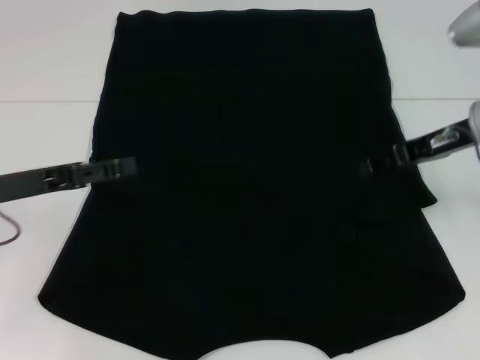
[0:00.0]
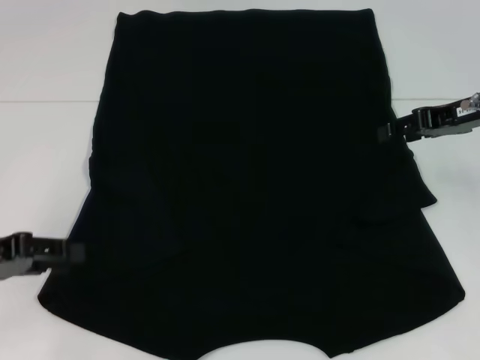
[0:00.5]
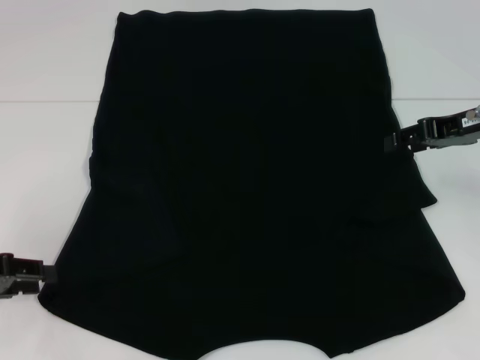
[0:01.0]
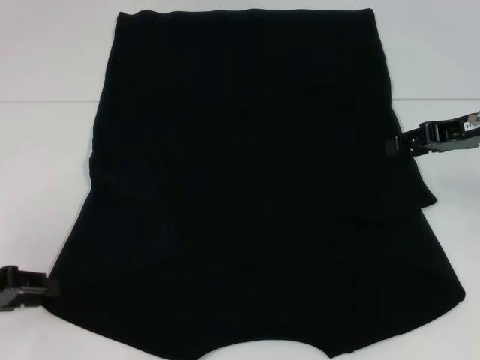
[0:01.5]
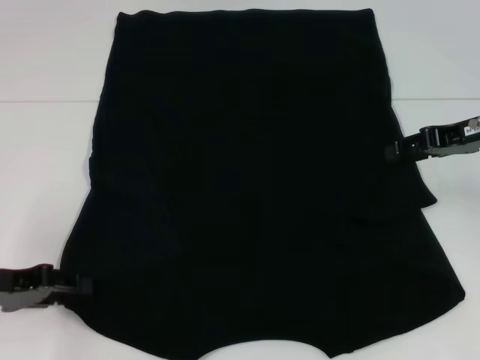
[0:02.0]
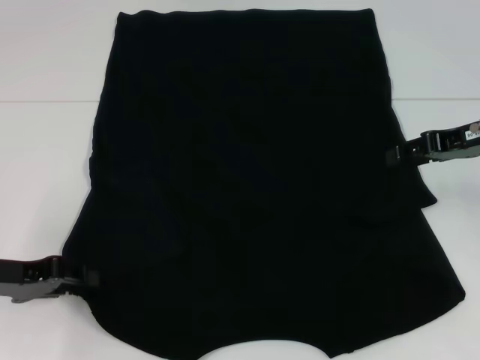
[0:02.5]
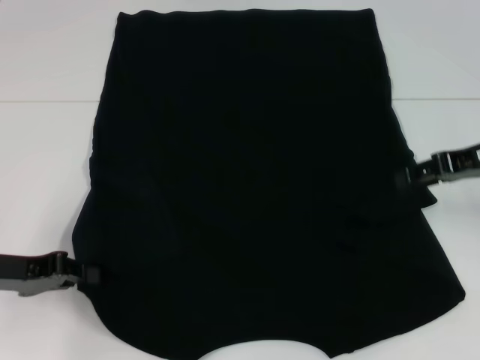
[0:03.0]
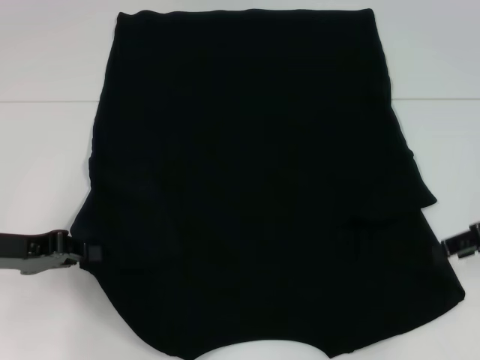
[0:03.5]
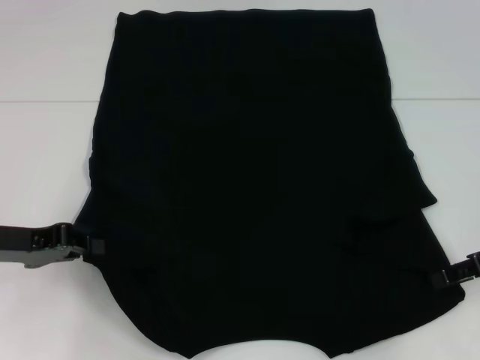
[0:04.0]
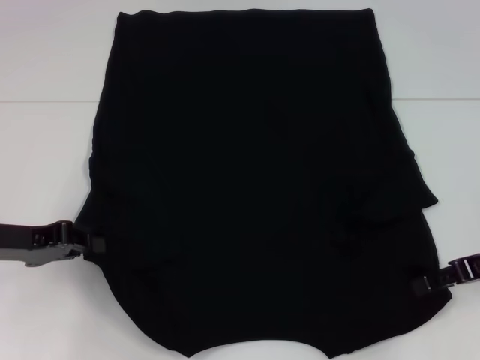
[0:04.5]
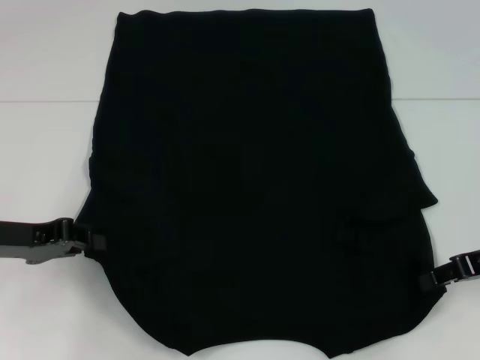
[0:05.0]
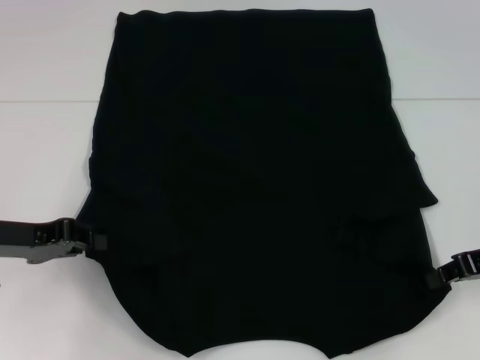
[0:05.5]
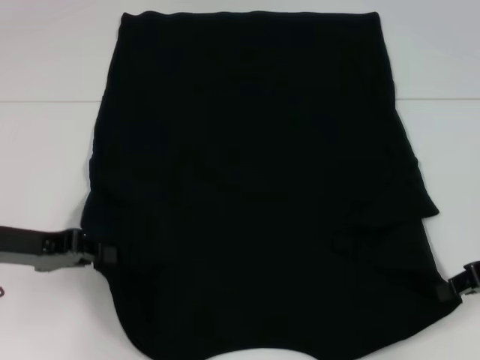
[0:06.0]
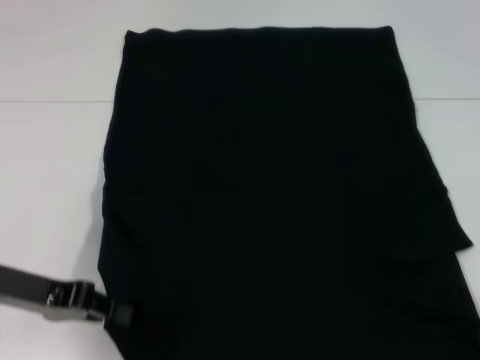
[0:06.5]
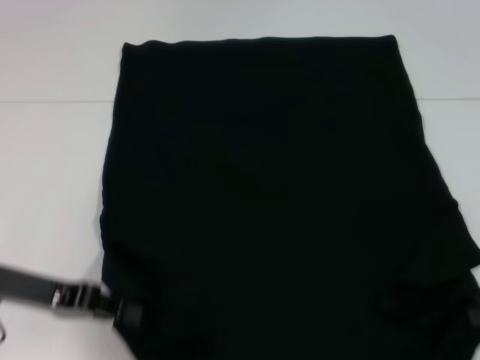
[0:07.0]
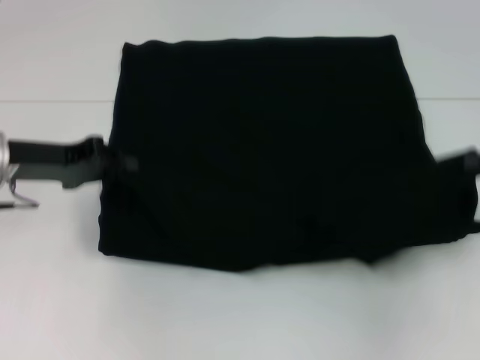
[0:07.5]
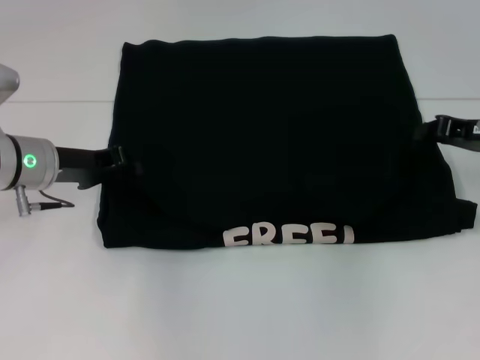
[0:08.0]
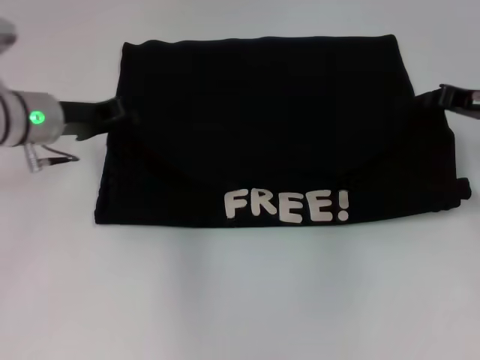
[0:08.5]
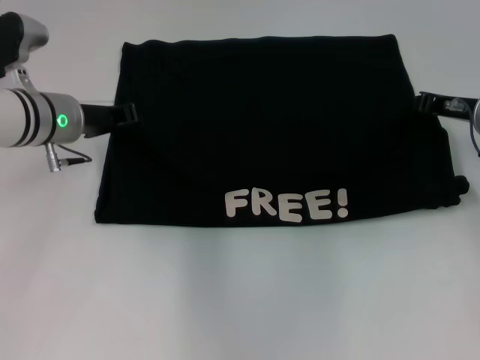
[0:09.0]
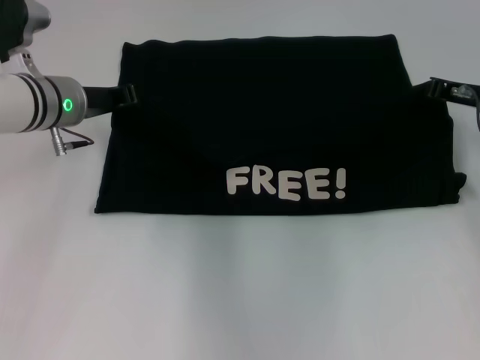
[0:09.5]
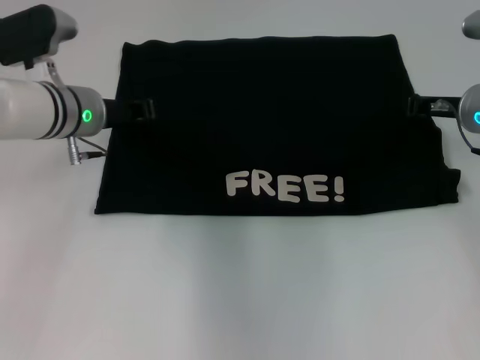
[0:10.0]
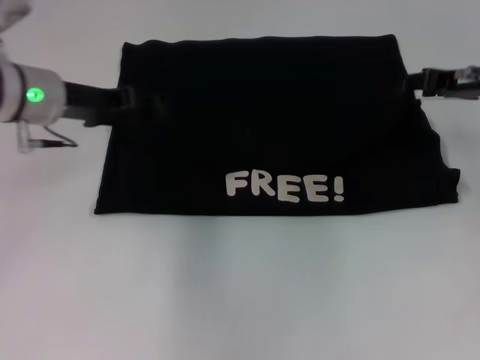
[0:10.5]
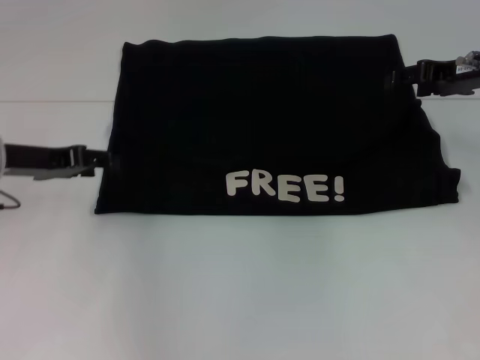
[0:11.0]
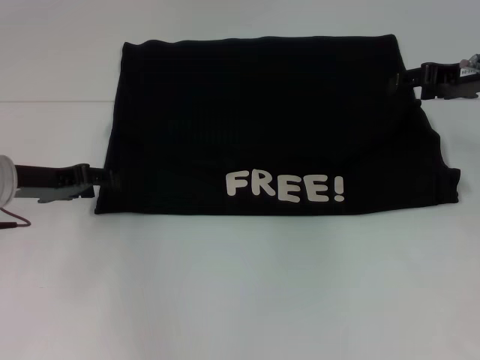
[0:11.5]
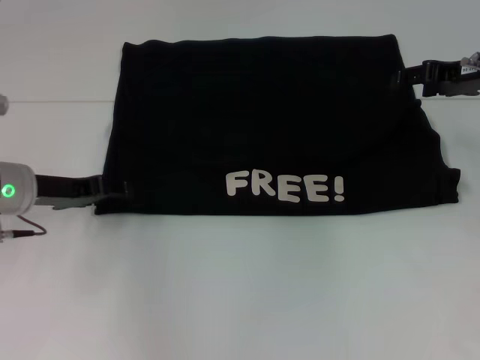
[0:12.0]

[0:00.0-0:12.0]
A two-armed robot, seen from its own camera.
Step, 0:00.0 to 0:02.5: Grab the bottom left corner with your left hand.
Step, 0:03.0 to 0:05.5: Grab the bottom right corner with your right hand.
Step, 0:06.0 to 0:10.0: Fold the clothes with your left hand.
Step, 0:06.0 to 0:10.0: Fold the clothes with your right hand.
0:00.0 to 0:02.0: The left gripper changes place by some 5 cm.
0:02.0 to 0:04.0: The left gripper closes; the right gripper heads backward and downward, covering approximately 10 cm.
0:04.0 to 0:06.0: The right gripper closes its fingers.
0:06.0 to 0:08.0: Both grippers travel together forward, some 10 cm.
0:08.0 to 0:10.0: The right gripper changes place by some 5 cm; the left gripper travels to the right and forward by roughly 5 cm.
0:10.0 to 0:12.0: The left gripper heads to the left and backward, covering some 10 cm, and opens, while the right gripper shifts approximately 5 cm upward, and opens up.

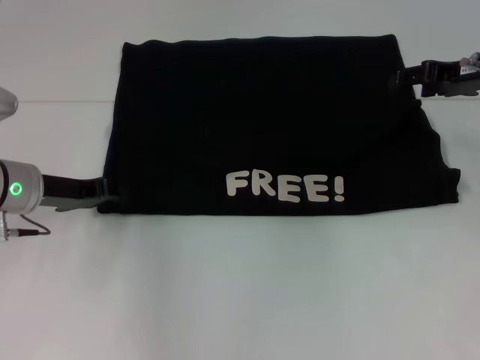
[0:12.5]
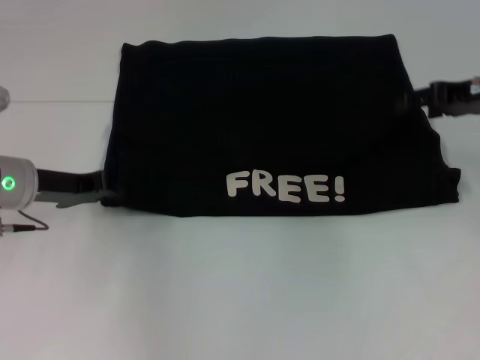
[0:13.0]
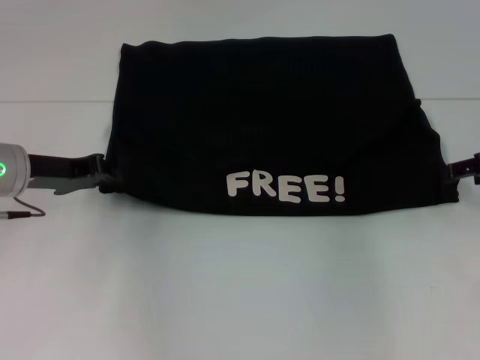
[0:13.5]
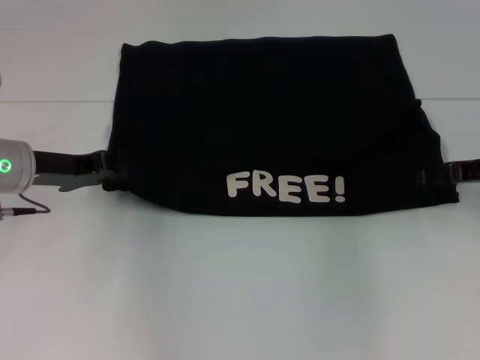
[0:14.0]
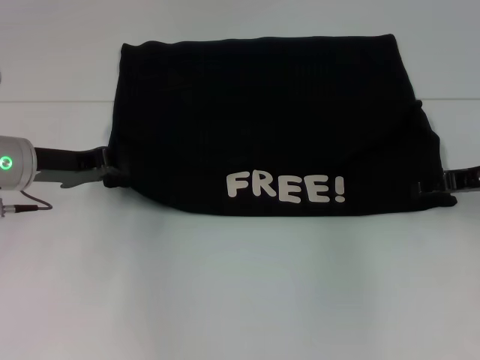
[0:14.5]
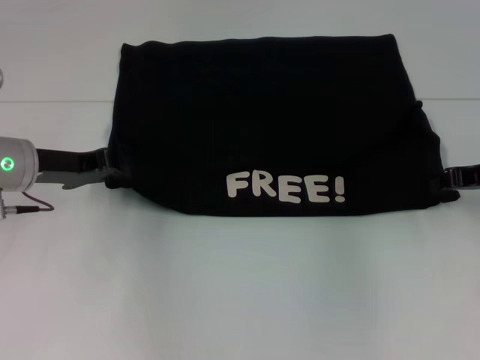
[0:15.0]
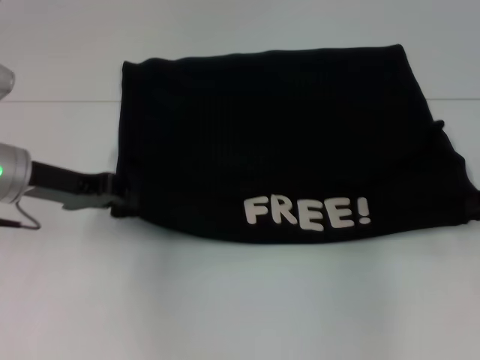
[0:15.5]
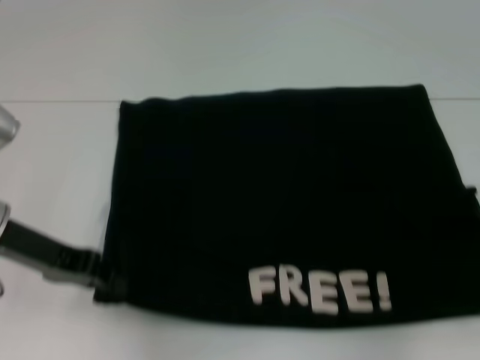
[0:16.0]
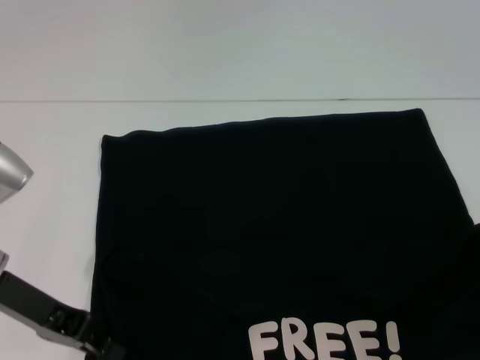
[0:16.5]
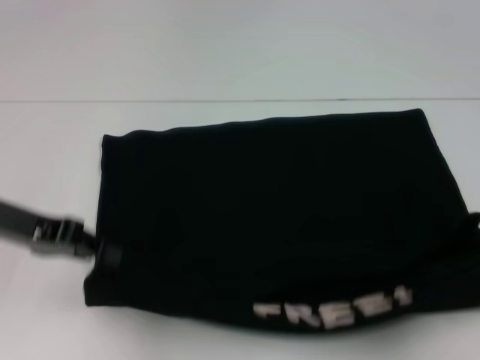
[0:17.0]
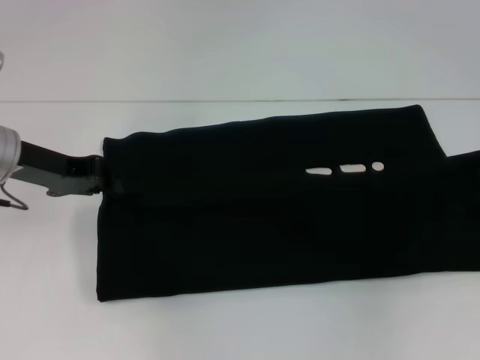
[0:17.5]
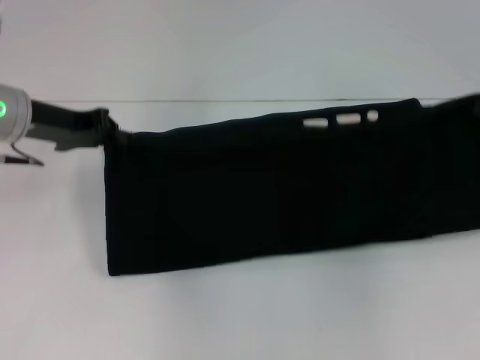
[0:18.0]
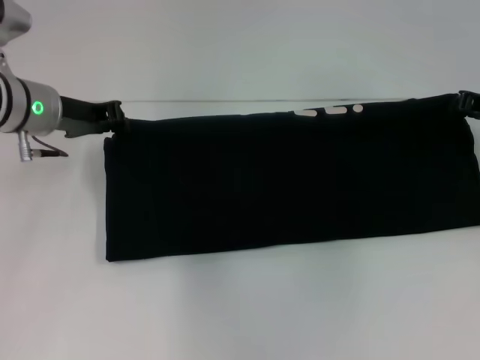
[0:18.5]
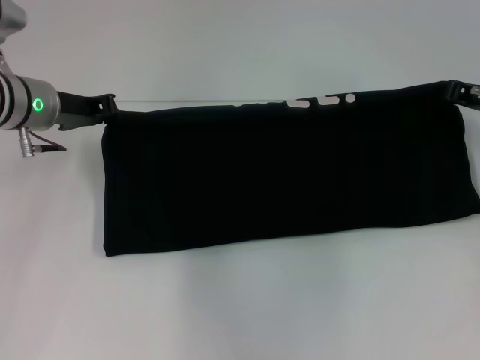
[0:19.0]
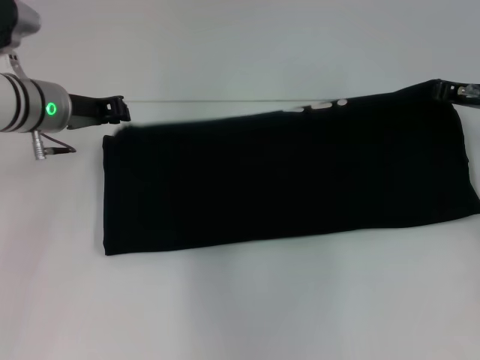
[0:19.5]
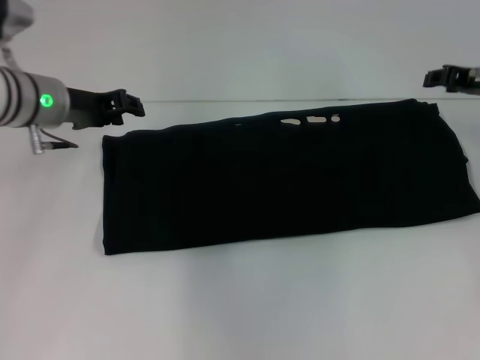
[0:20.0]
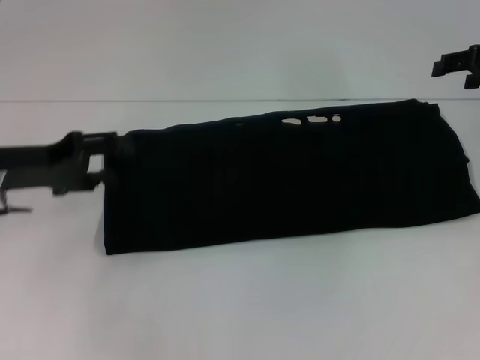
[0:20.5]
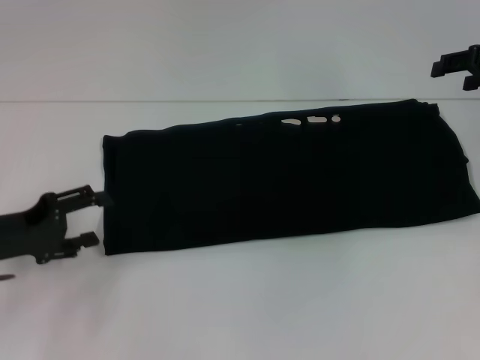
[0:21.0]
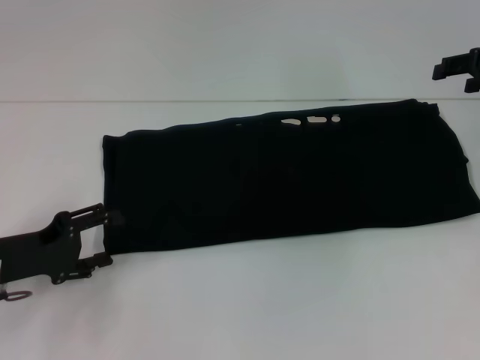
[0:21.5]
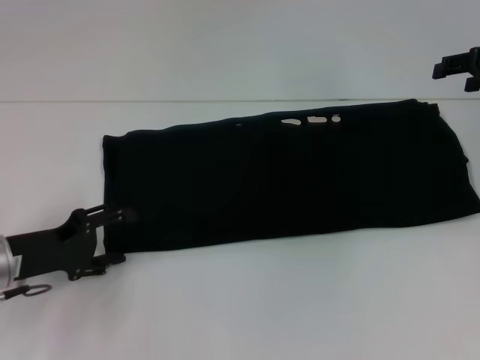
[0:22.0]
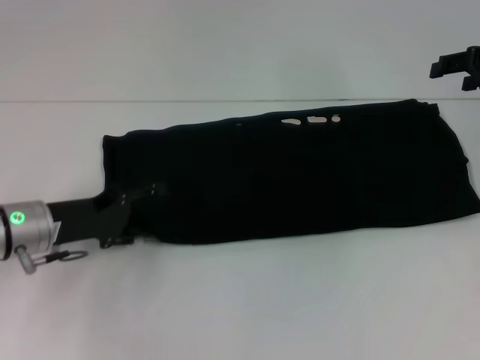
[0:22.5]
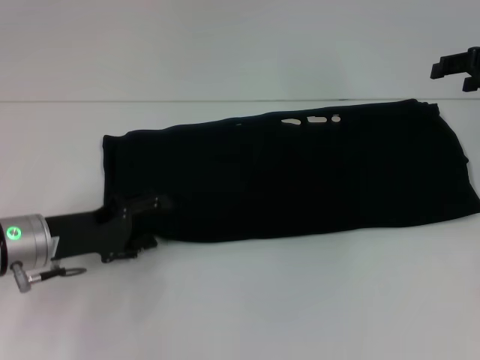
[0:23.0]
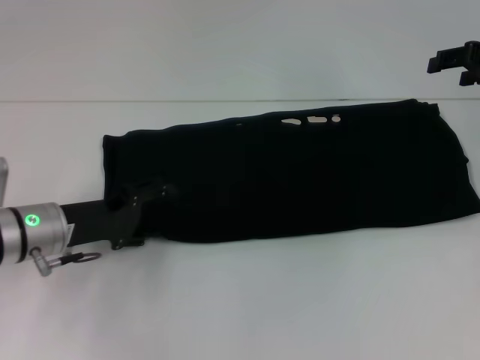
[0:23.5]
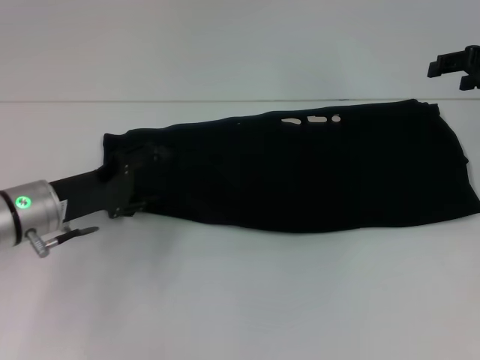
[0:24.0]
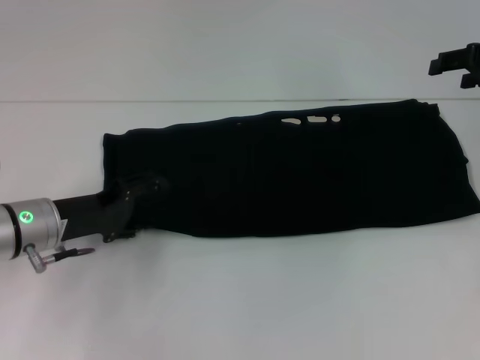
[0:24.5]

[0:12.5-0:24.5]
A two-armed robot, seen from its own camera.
Step, 0:12.5 to 0:16.5: Pull the clothes with your left hand.
Step, 0:12.5 to 0:16.5: Pull the clothes with your right hand.
Step, 0:17.0 to 0:19.5: Fold the clothes with your right hand.
0:12.5 to 0:14.5: The right gripper goes approximately 10 cm downward and backward. The left gripper closes.
0:14.5 to 0:16.5: The left gripper shifts approximately 10 cm backward; the right gripper travels backward and to the right by roughly 15 cm, and closes.
0:16.5 to 0:18.5: Both grippers travel together forward, some 15 cm.
0:18.5 to 0:20.5: The left gripper is displaced backward and to the left by some 10 cm, and opens up, while the right gripper travels upward by some 5 cm, and opens.
0:20.5 to 0:22.5: The left gripper moves downward, some 5 cm.
0:22.5 to 0:24.5: The grippers make only small movements.

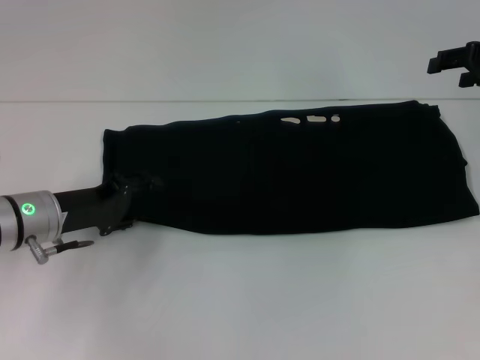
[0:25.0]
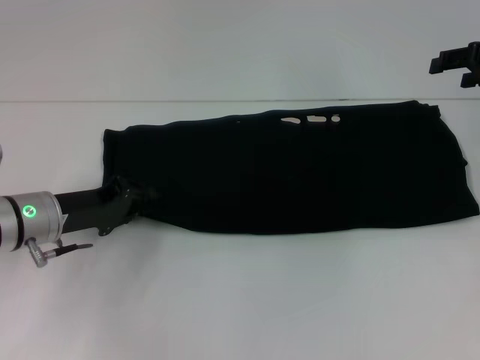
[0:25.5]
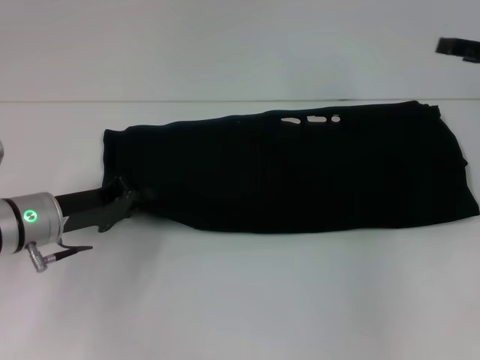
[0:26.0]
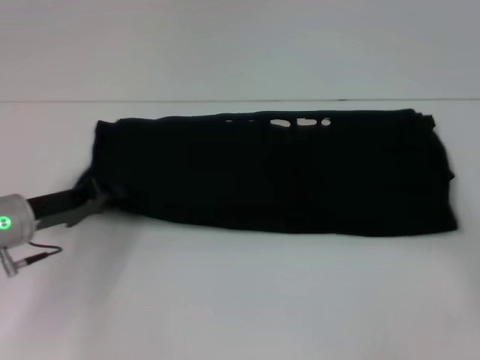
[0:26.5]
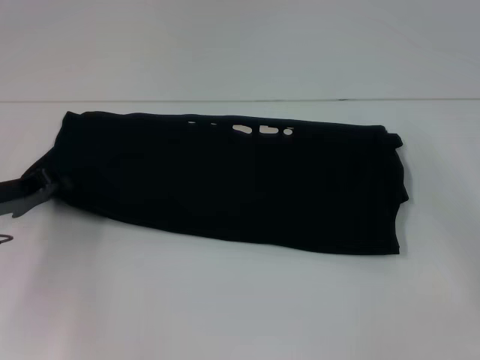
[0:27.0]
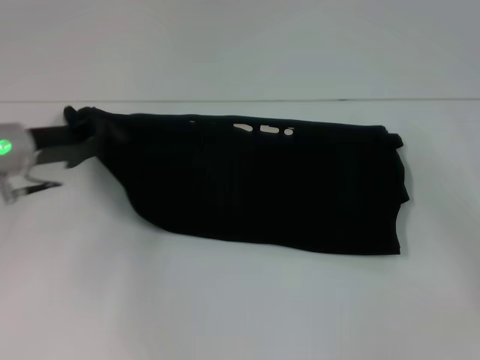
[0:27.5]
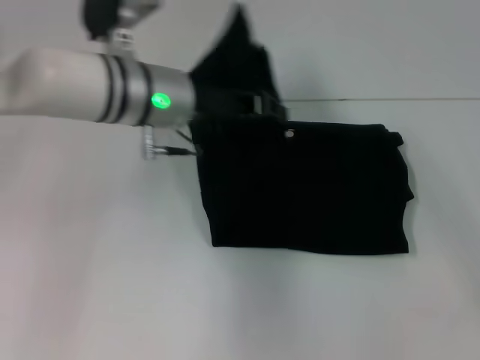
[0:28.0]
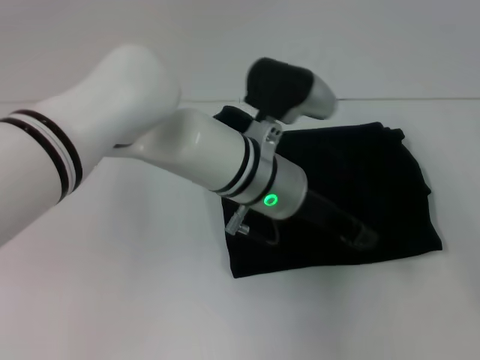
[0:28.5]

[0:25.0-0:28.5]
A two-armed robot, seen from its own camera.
0:25.0 to 0:27.0: The right gripper goes roughly 20 cm backward, downward and to the right. Meanwhile the left gripper shifts approximately 5 cm to the left, and closes.
0:27.0 to 0:28.5: The left gripper heads to the right, covering approximately 30 cm.
